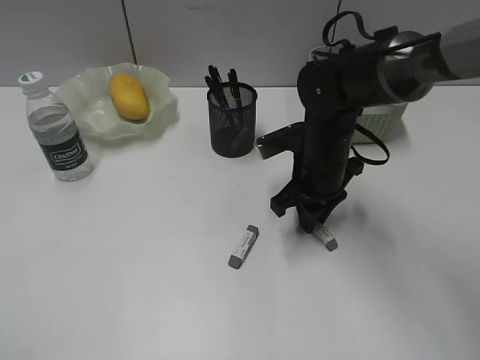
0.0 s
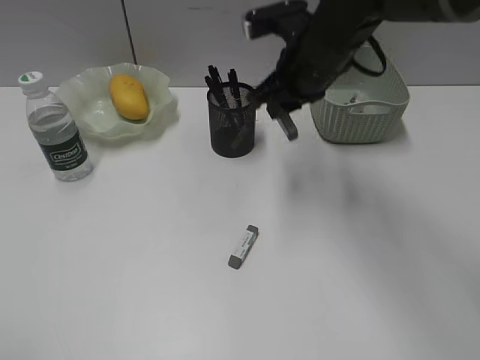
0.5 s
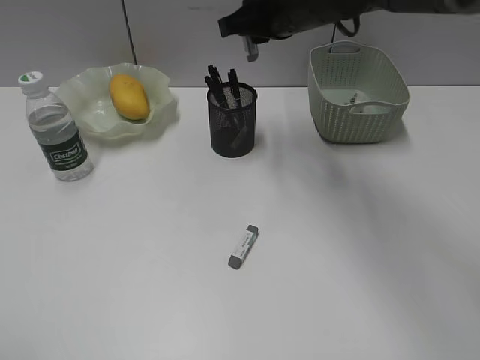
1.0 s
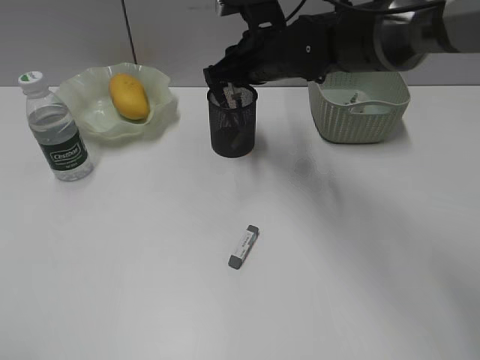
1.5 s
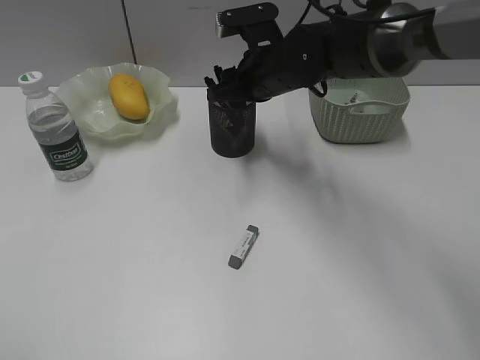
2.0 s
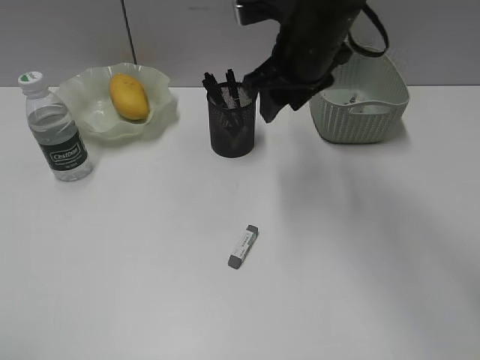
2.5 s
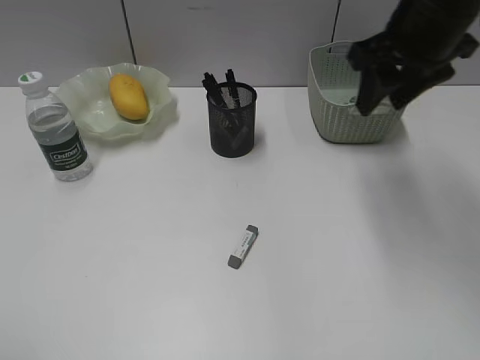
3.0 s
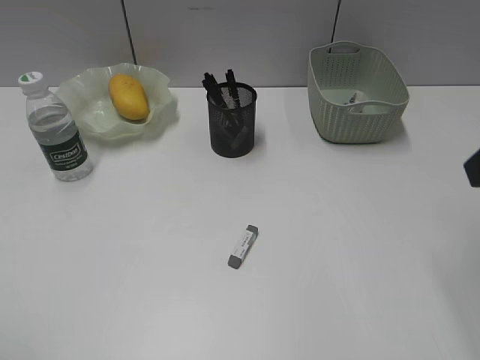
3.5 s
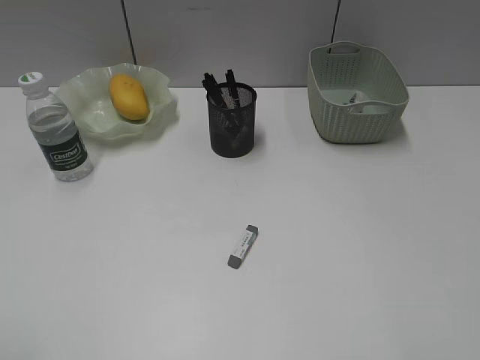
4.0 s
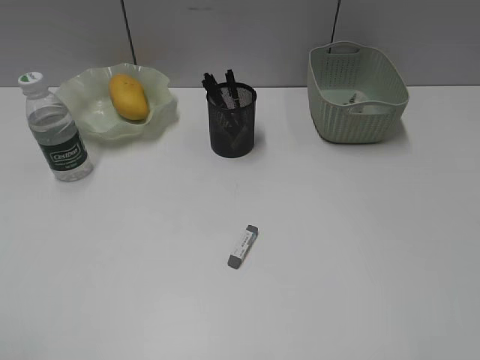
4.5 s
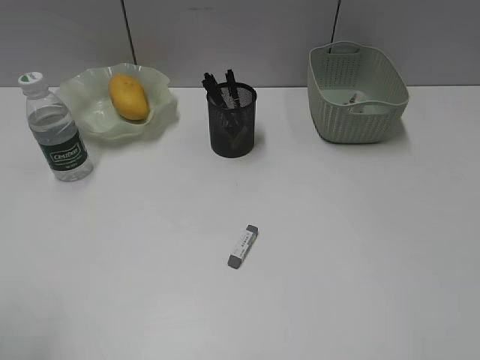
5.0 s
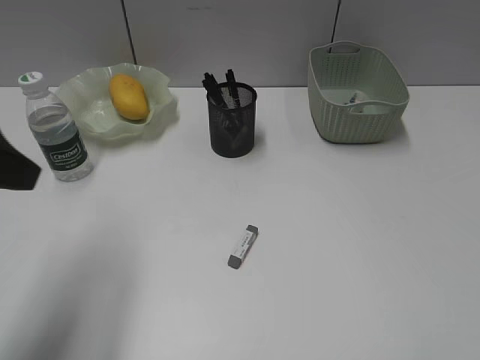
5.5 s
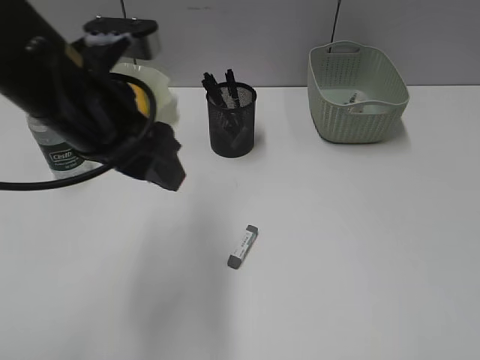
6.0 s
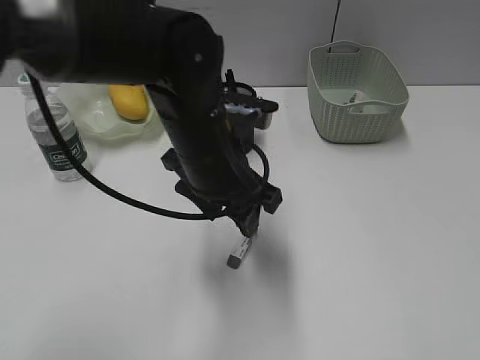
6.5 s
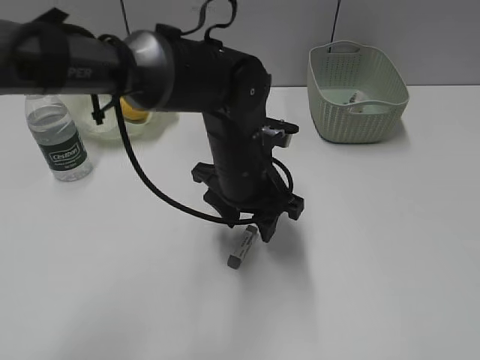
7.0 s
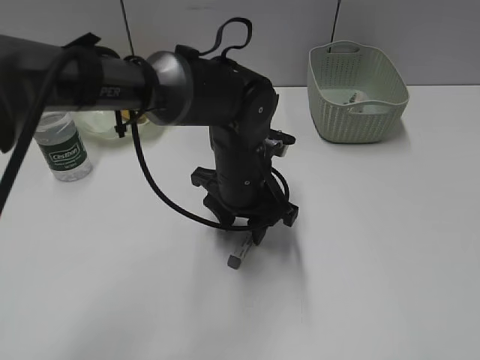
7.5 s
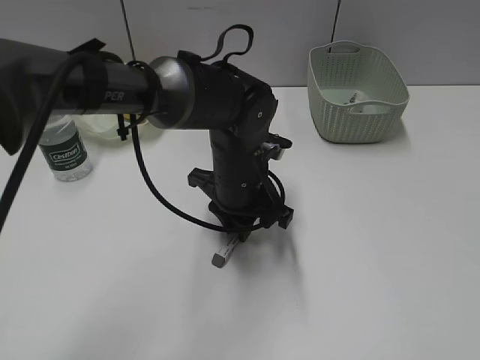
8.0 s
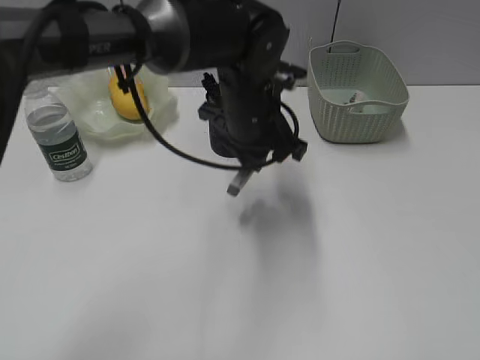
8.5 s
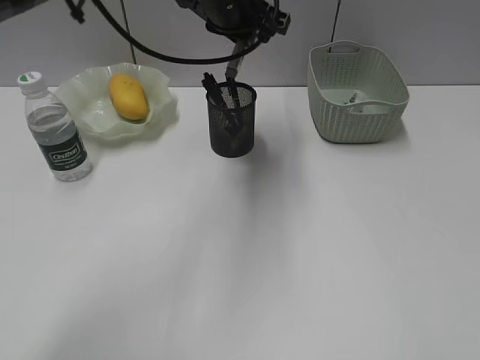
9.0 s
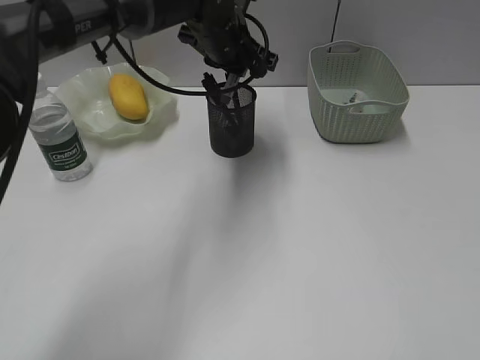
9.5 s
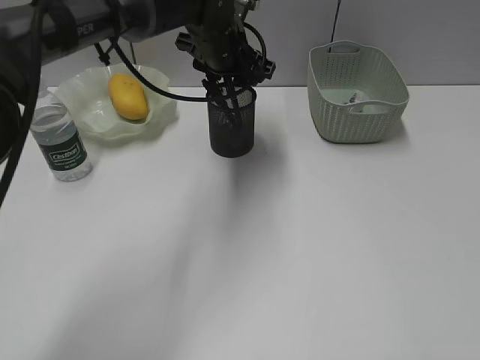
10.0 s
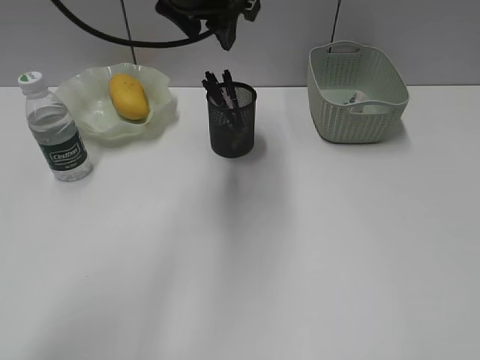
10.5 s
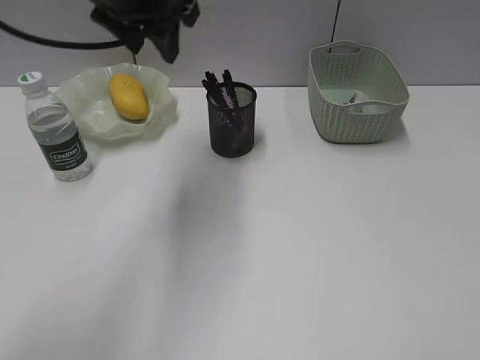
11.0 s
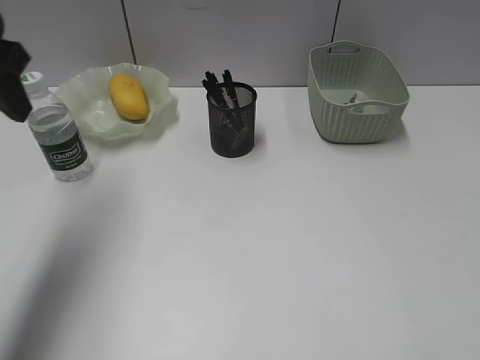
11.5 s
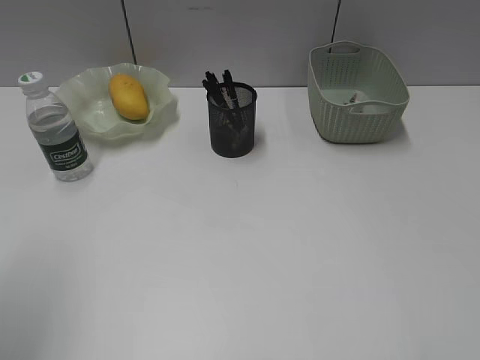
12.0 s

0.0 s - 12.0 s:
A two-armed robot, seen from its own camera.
Step, 0.5 s - 2.0 s: Place the eraser in pen holder with right gripper.
Step, 2.5 s - 8.0 s: Grasp the eraser with left gripper.
Step, 8.5 s - 10.0 s: Place the eraser in pen holder with left gripper.
0.0 s - 2.0 s: The right gripper heads forward, upward and to the left, covering some 10 cm, and opens.
2.0 s - 4.0 s: The right gripper travels backward and to the right by approximately 40 cm, and opens up.
4.0 s - 6.0 s: The left gripper is displaced forward and to the right by some 30 cm.
6.0 s - 8.0 s: The left gripper is displaced downward, to the right and forward by approximately 20 cm, and closes its fingers.
8.0 s - 10.0 s: The left gripper moves forward and upward, some 15 cm, and opens.
10.0 s - 12.0 s: The left gripper moves backward and to the left, roughly 40 cm.

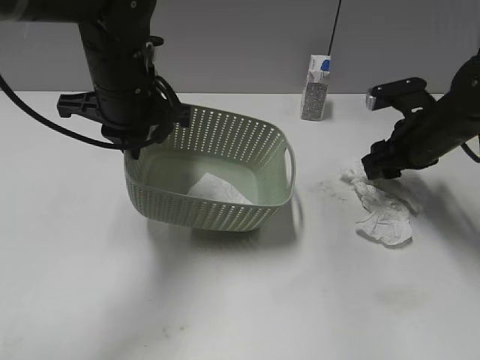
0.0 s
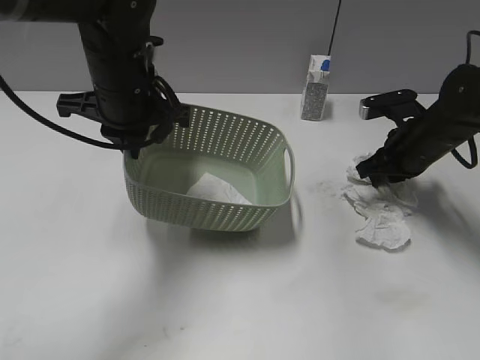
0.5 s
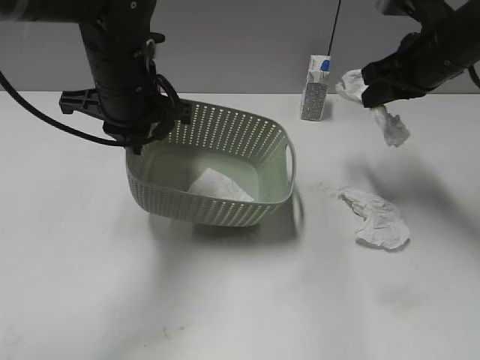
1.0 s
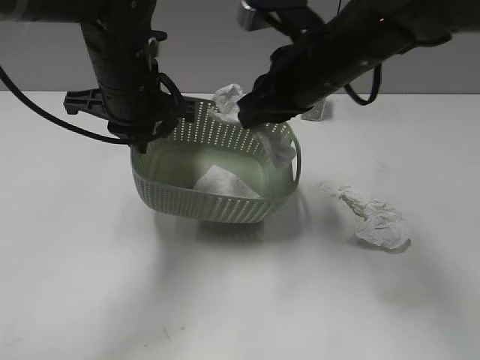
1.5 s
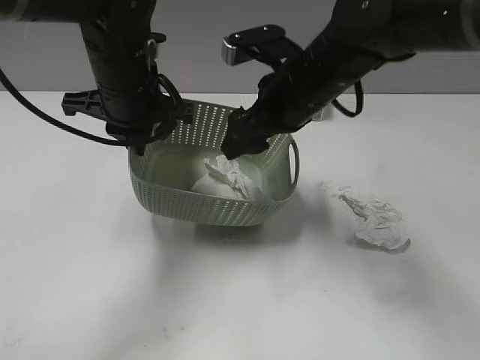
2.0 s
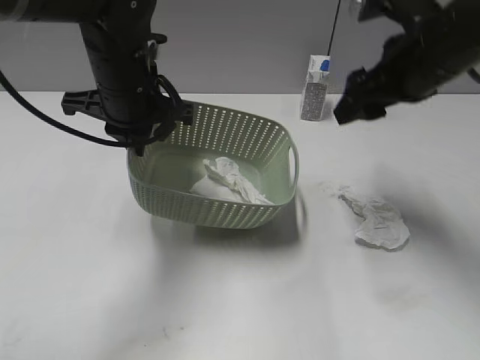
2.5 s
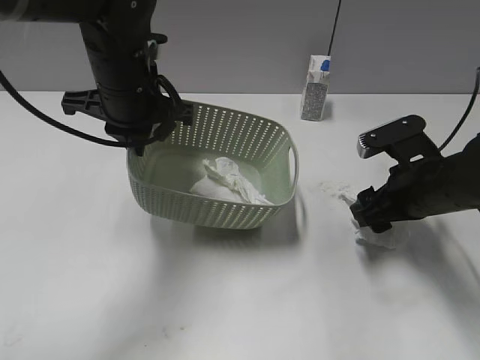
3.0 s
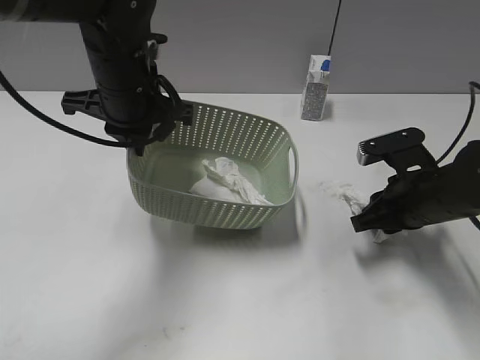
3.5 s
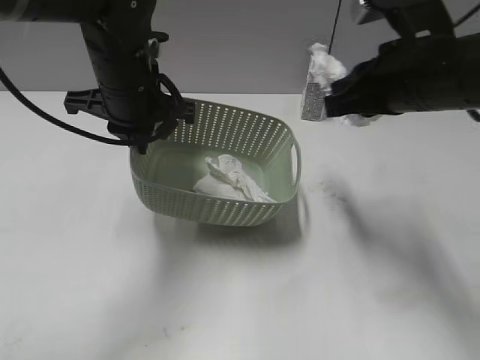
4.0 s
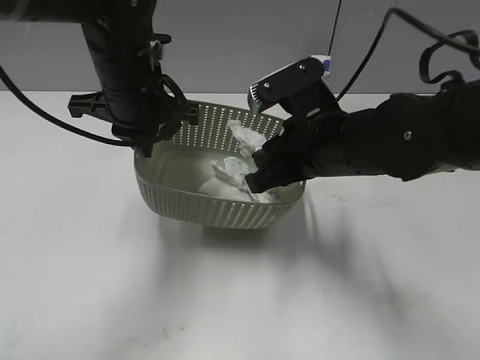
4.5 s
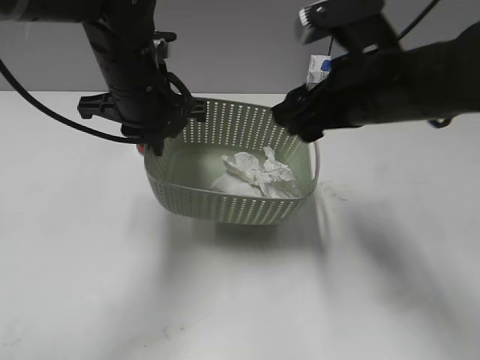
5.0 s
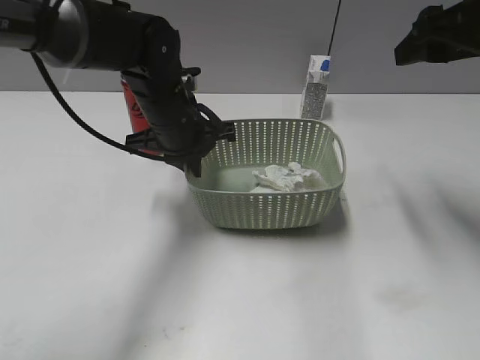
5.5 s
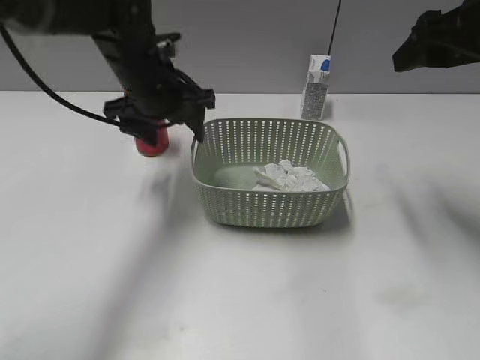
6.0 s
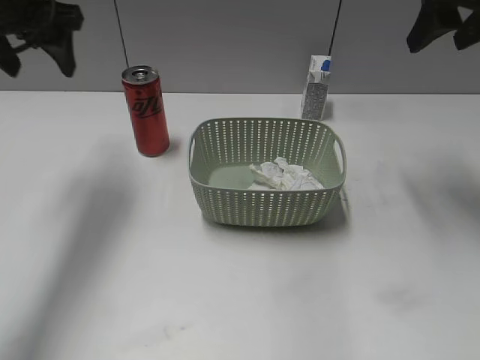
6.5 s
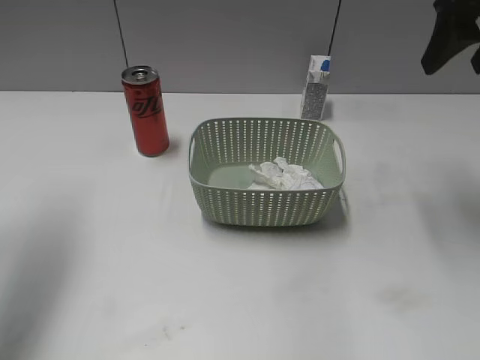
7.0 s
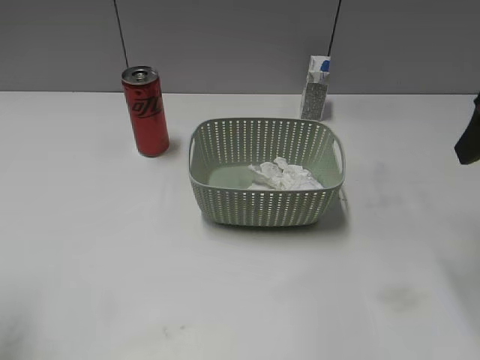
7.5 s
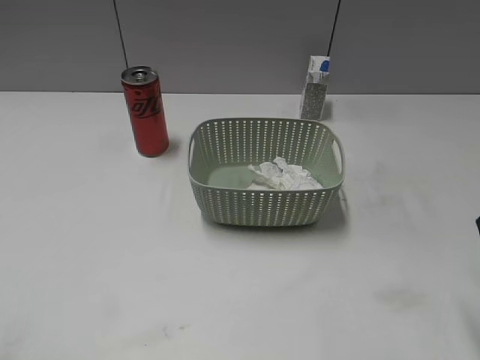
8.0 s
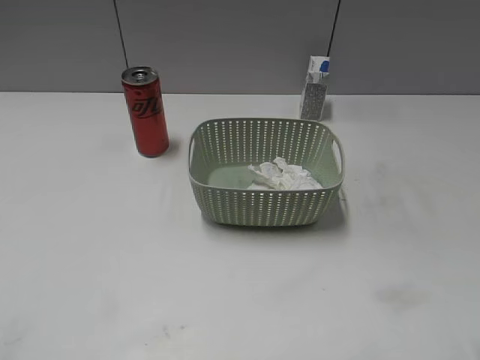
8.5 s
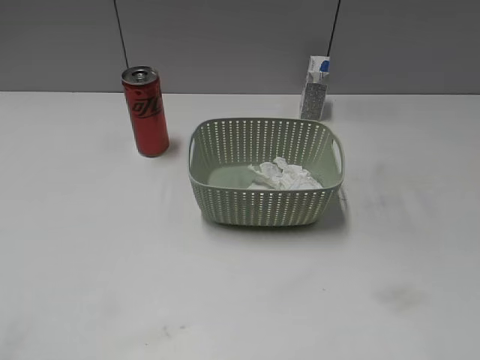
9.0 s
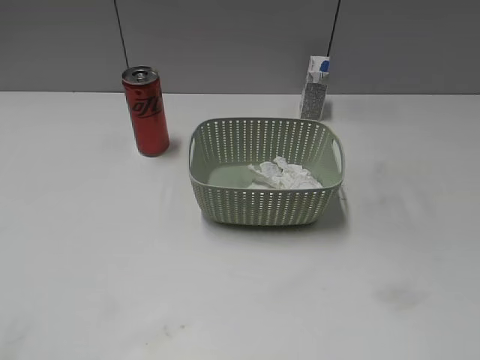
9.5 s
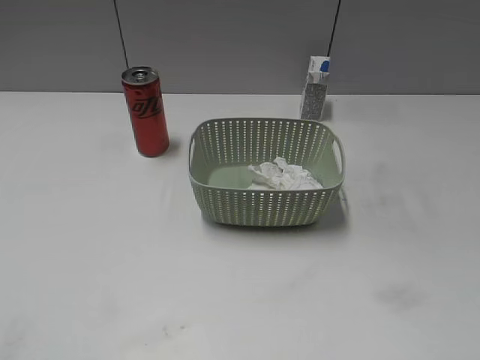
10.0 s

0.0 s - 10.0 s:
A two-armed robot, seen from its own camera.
Step, 0.0 s - 0.5 s: Grasp the waste paper with right gripper.
Step, 1.0 s - 2.0 s: Place the waste paper in the basket with right gripper.
Step, 2.5 s - 3.5 s: Grasp the waste paper with right gripper.
Step, 4.0 s - 5.0 s: Place the waste paper in the basket with right gripper.
Step, 5.5 s - 6.0 s: Place the basket on the table with left gripper.
0.0 s - 2.0 s: The right gripper goes about 20 cm to the left and upward, and closes, then opens again.
2.0 s - 4.0 s: The right gripper moves to the right and backward, roughly 10 cm, and closes up.
4.0 s - 6.0 s: The left gripper opens its fingers. Meanwhile the right gripper moves to the right and upward, approximately 10 cm, and opens its fingers.
6.0 s - 8.0 s: The left gripper is displaced backward and to the left by approximately 40 cm. Meanwhile the right gripper heads backward, covering some 15 cm.
